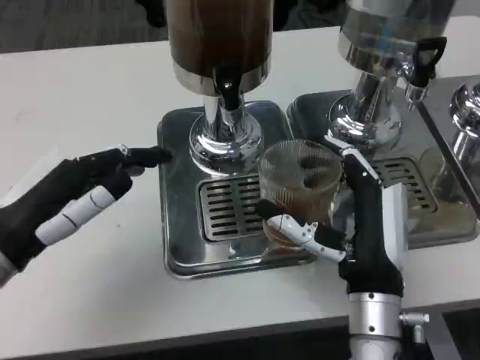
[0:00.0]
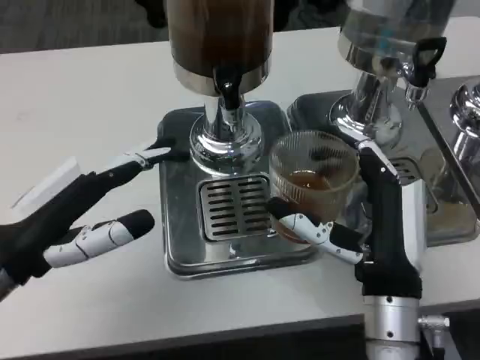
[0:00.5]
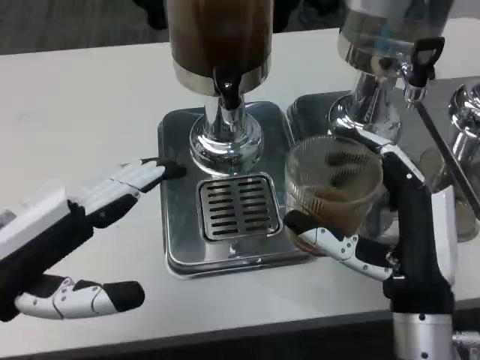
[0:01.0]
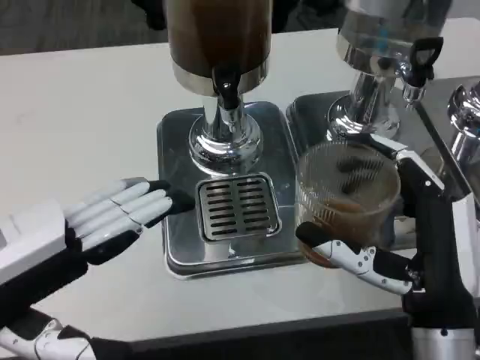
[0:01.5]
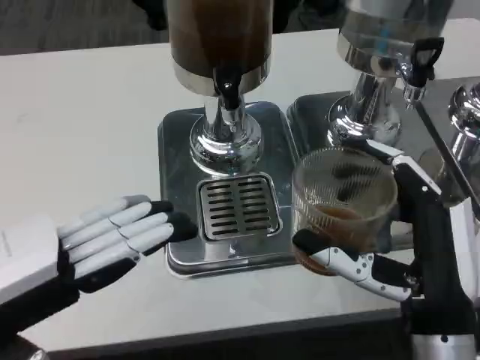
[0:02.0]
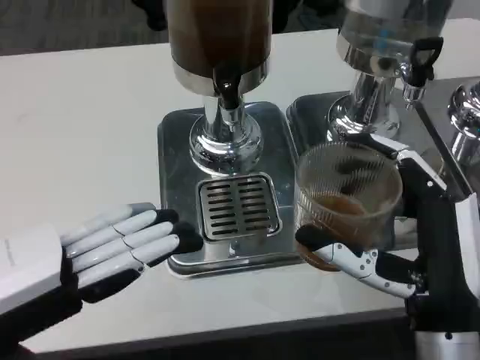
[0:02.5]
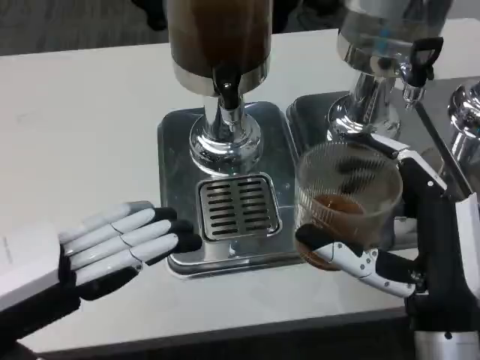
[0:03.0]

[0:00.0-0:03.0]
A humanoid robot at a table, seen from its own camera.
Task of the whole recording: Grasp the cup under the faucet to collect the drink, then remove the cup.
0:00.0 to 0:01.5: The left hand goes some 10 cm backward and upward; the right hand heads backward, covering some 5 cm.
0:01.5 to 0:03.0: There are only small adjustments of the hands.

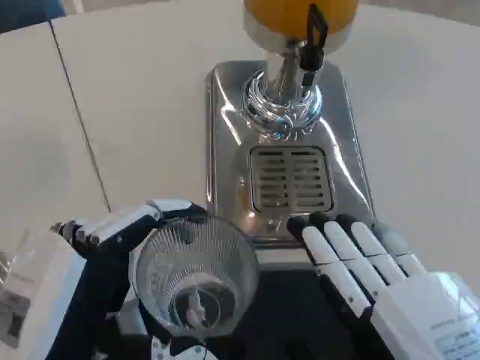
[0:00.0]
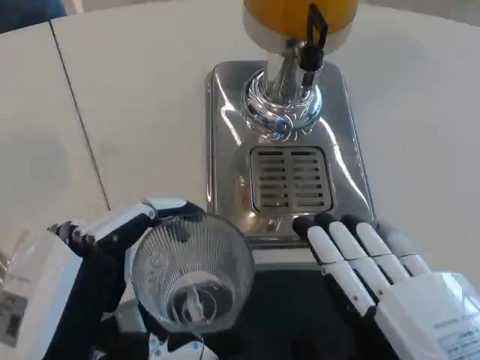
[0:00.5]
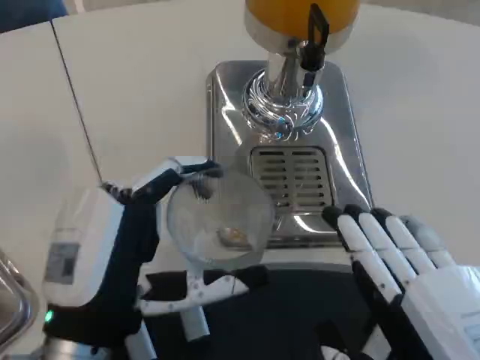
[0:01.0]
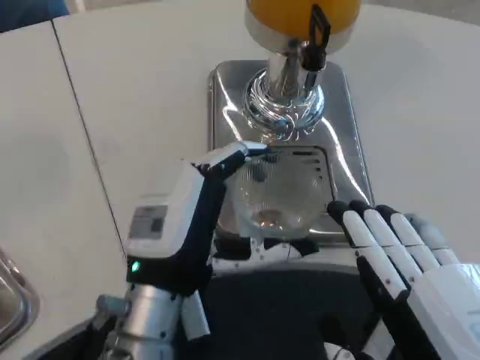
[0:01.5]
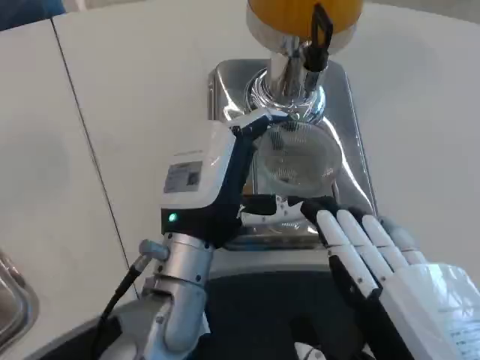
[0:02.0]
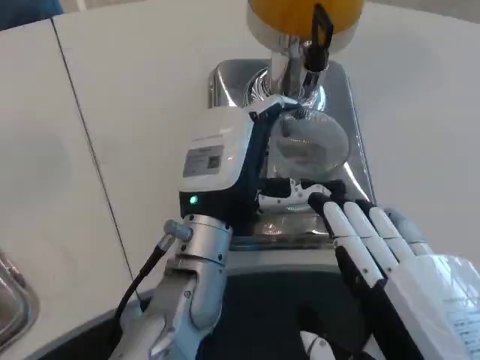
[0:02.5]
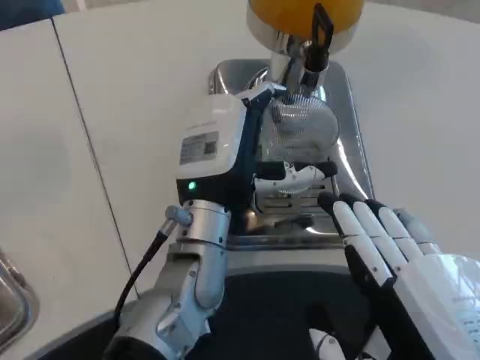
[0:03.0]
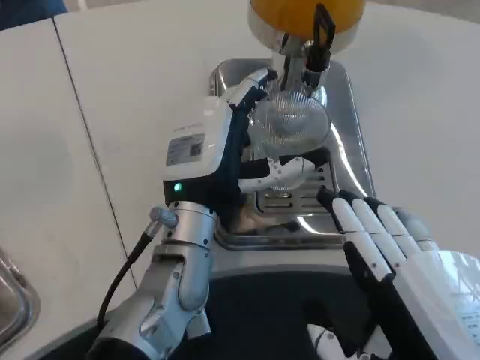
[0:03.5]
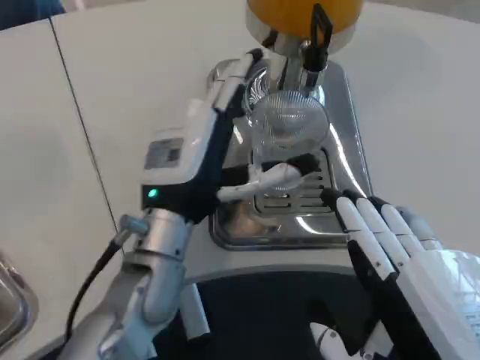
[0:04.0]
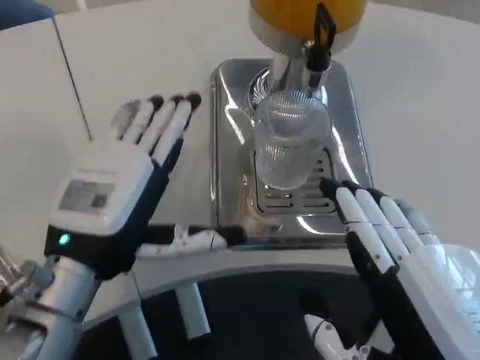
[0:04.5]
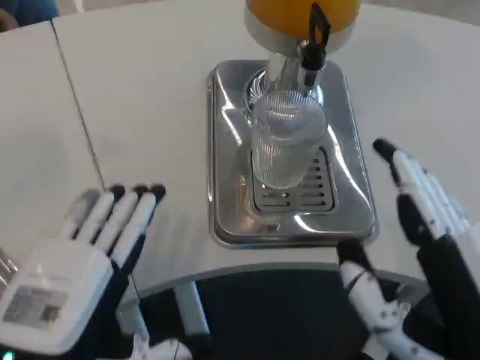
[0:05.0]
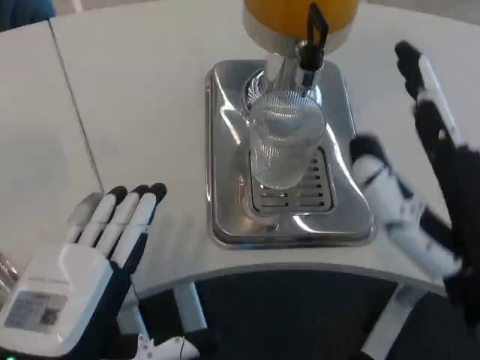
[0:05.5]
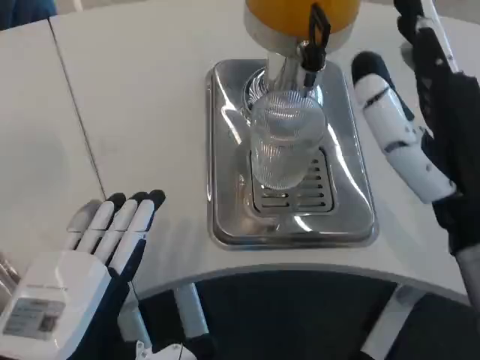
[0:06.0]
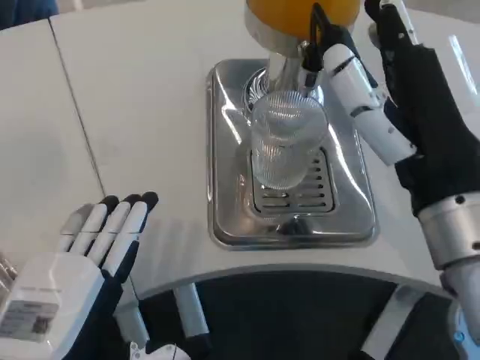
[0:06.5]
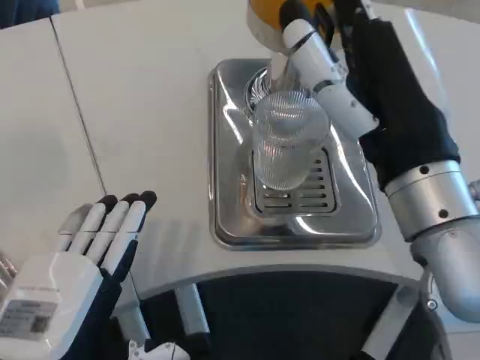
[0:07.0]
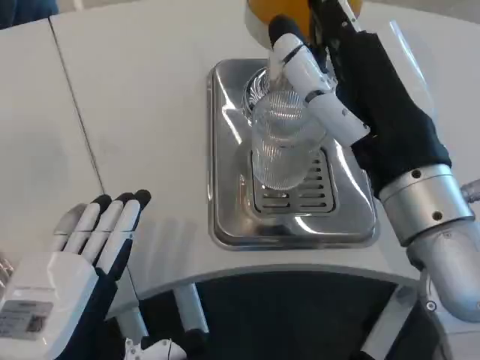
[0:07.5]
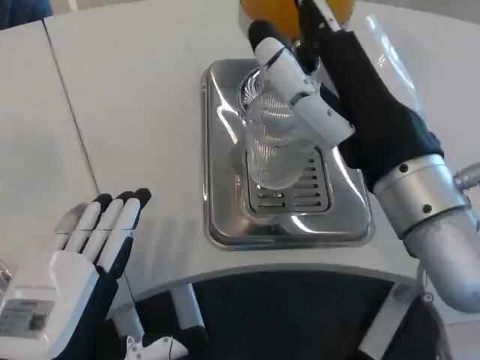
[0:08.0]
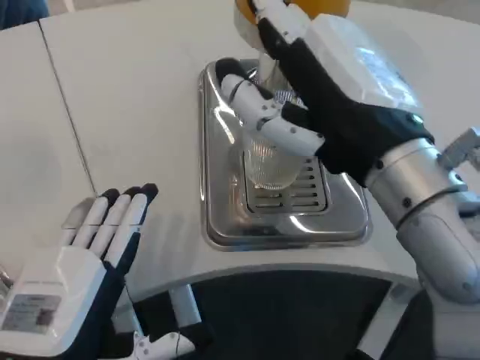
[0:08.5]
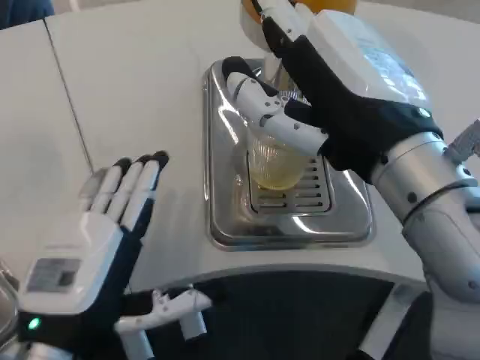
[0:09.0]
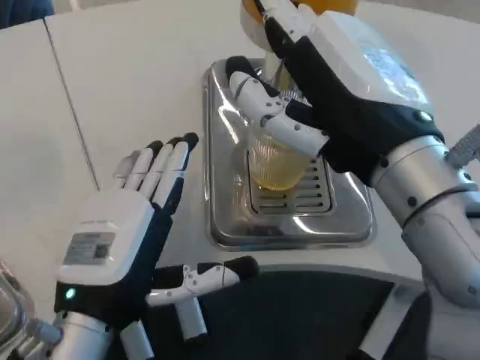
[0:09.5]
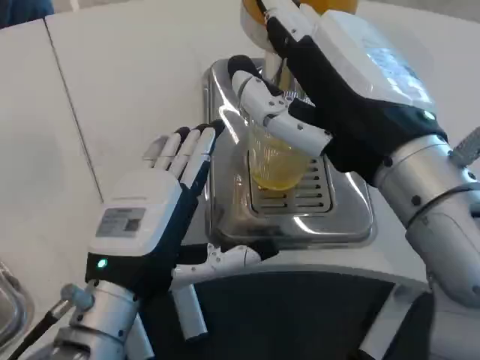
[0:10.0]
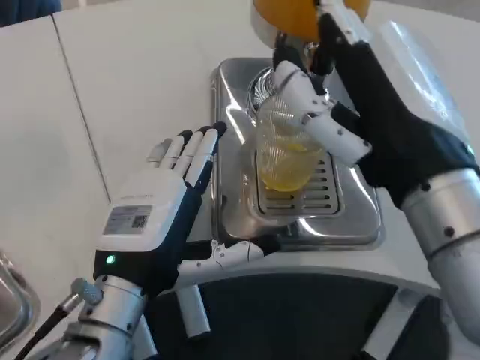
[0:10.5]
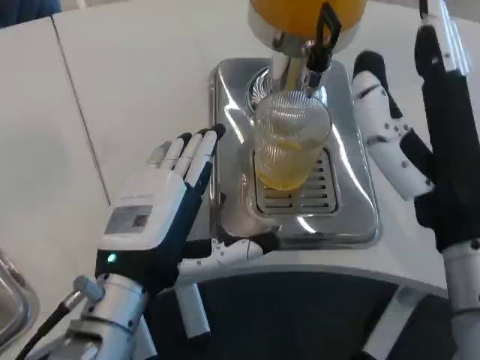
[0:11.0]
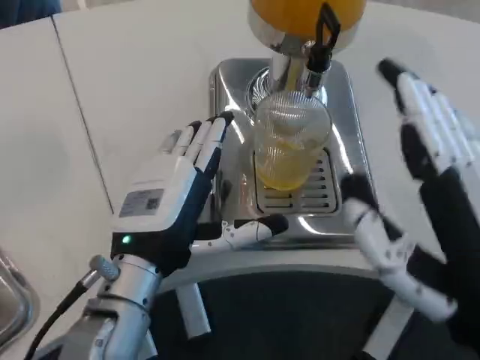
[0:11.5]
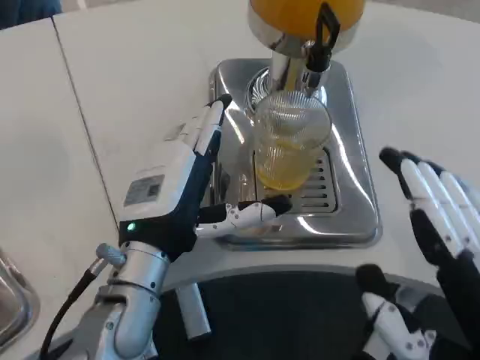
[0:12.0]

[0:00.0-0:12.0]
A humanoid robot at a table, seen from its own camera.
Task of the whole recording: Grasp the cup under the faucet to collect the drink, then remove the cup.
0:00.0 to 0:02.0: The left hand goes approximately 20 cm forward and to the right.
0:04.0 to 0:06.0: The right hand moves forward, about 10 cm. The left hand goes approximately 20 cm backward and to the left.
0:06.0 to 0:08.0: The right hand shifts by about 5 cm.
0:08.0 to 0:10.0: The left hand heads forward and to the right, covering approximately 10 cm.
0:10.0 to 0:12.0: The left hand shifts by some 5 cm, while the right hand shifts roughly 20 cm backward, downward and to the right.

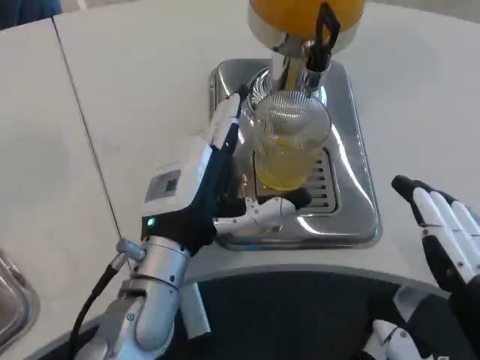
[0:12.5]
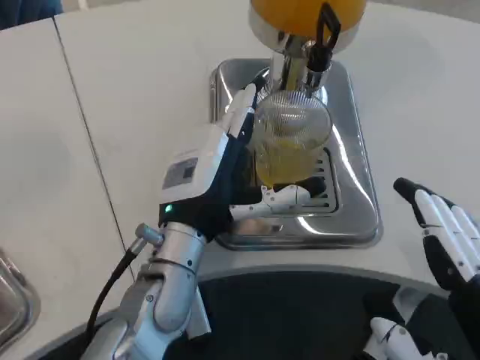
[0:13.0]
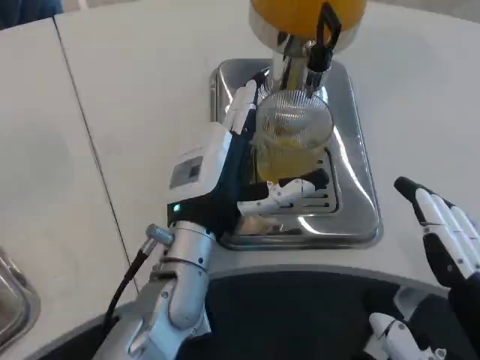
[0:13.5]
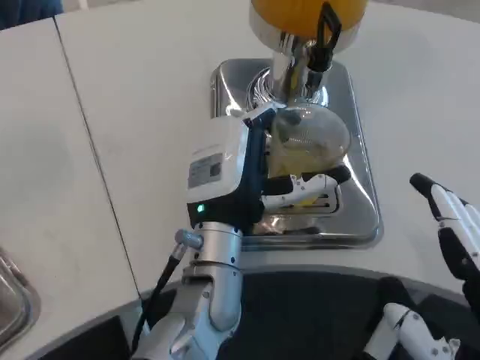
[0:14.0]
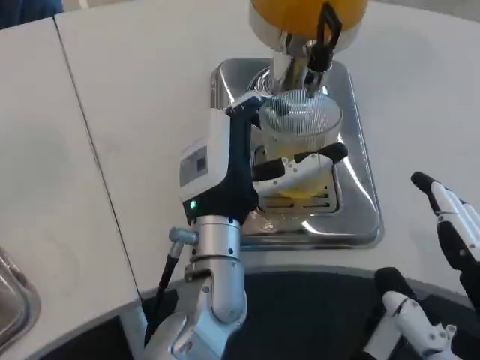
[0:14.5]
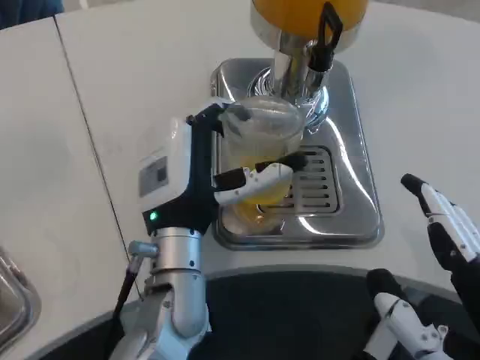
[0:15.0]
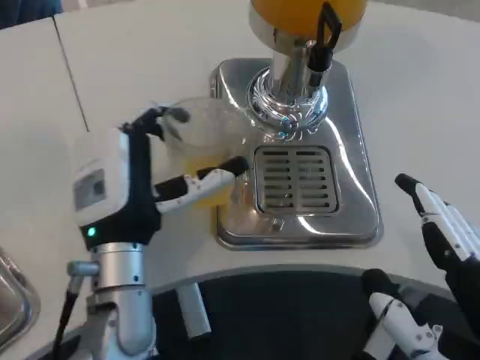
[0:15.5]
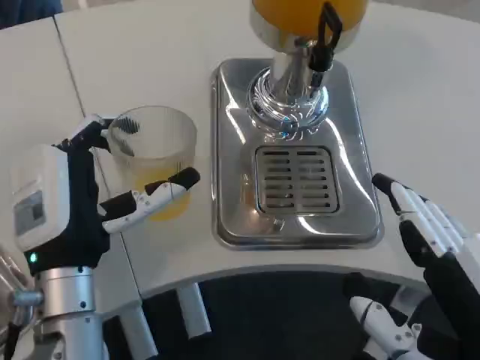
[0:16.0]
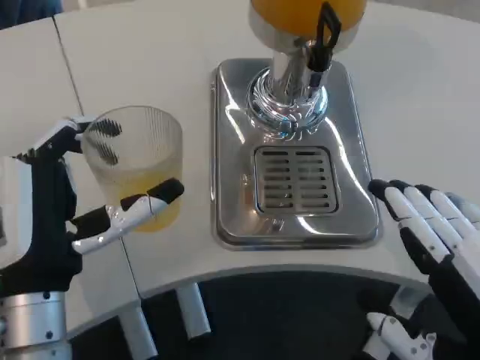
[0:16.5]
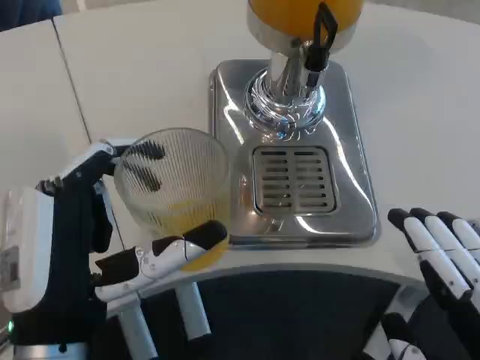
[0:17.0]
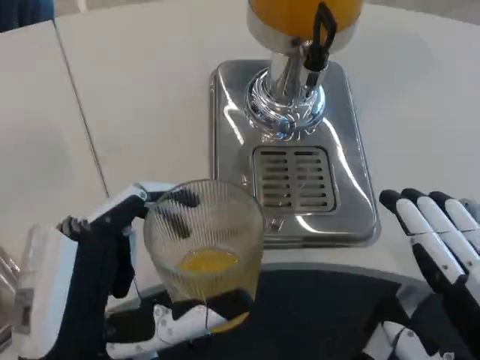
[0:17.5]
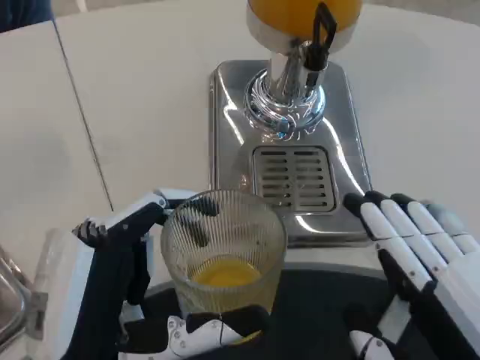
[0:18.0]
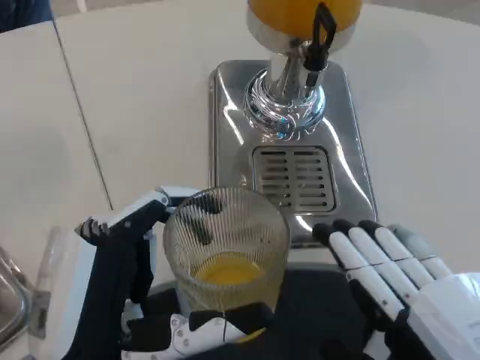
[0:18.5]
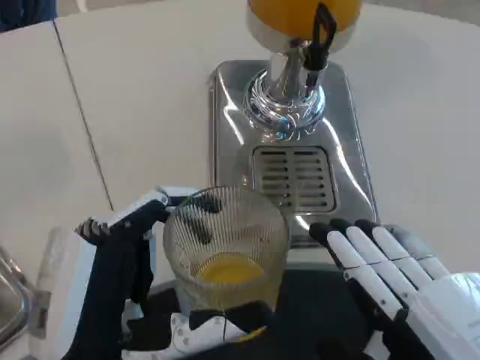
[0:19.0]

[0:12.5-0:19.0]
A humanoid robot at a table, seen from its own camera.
Task of the whole recording: Grasp the cup under the faucet to collect the drink, then remove the cup.
0:12.5 to 0:14.5: The left hand travels to the right by roughly 5 cm.
0:14.5 to 0:17.0: The left hand is displaced backward and to the left by some 15 cm.

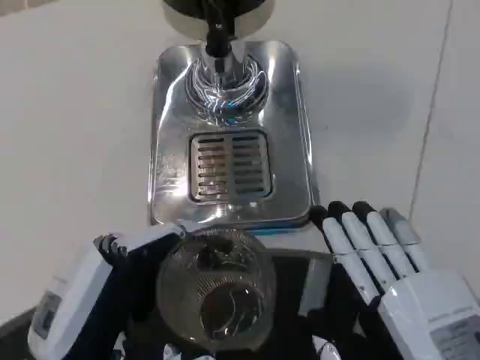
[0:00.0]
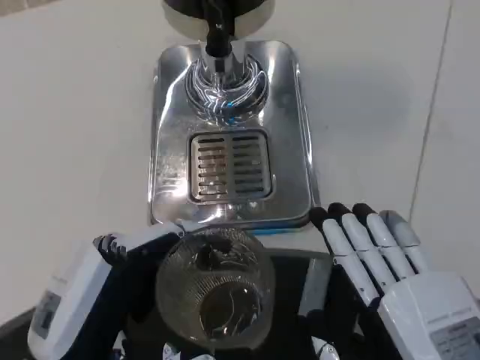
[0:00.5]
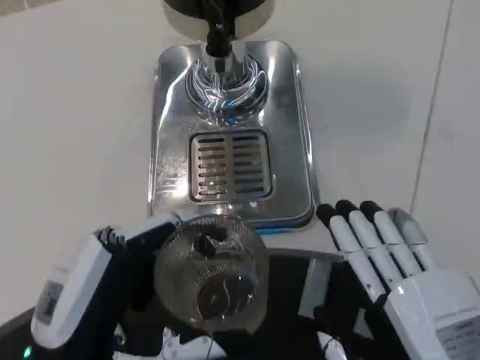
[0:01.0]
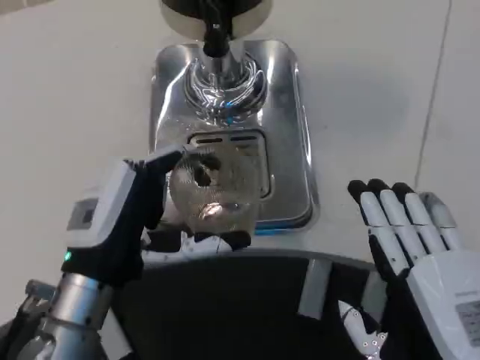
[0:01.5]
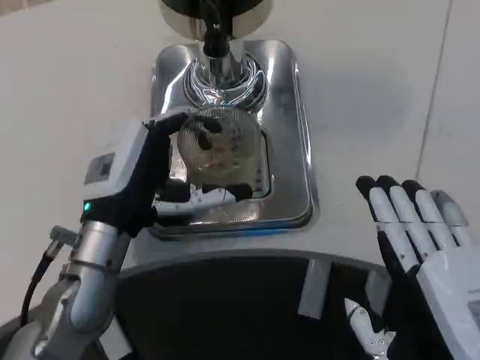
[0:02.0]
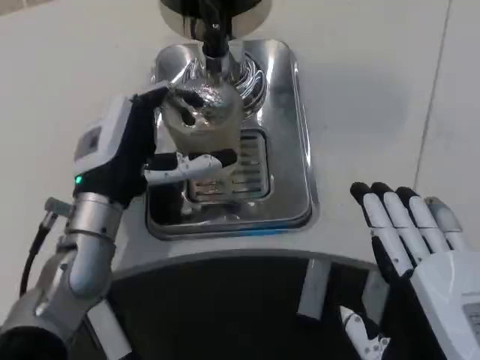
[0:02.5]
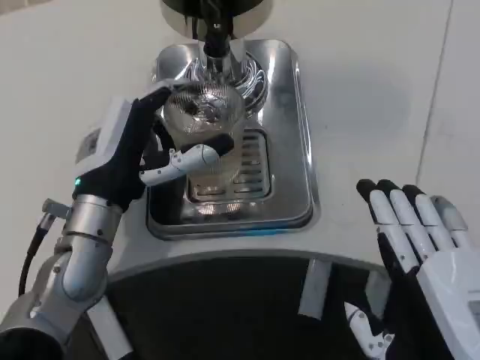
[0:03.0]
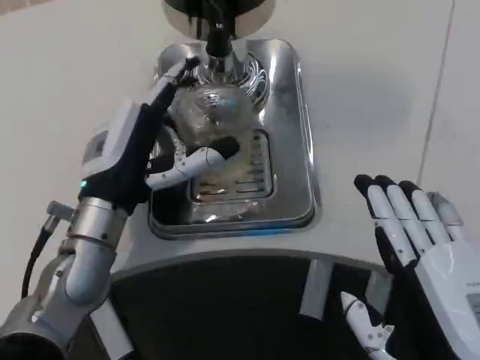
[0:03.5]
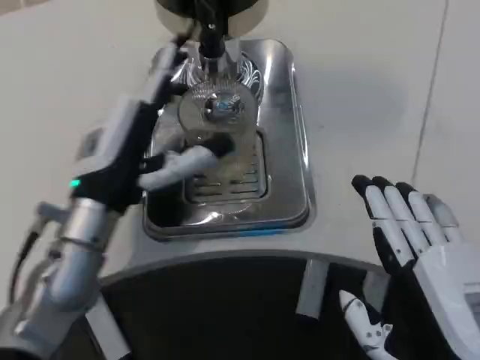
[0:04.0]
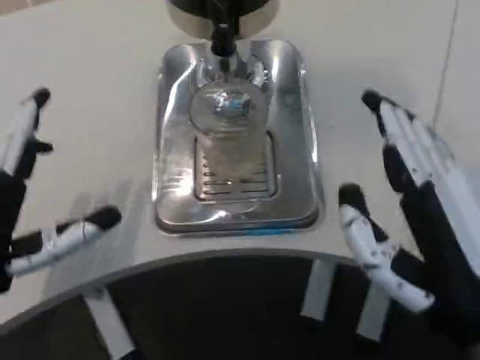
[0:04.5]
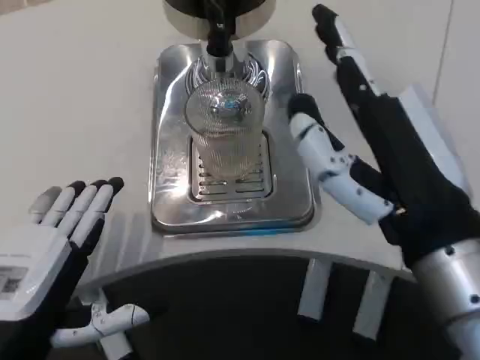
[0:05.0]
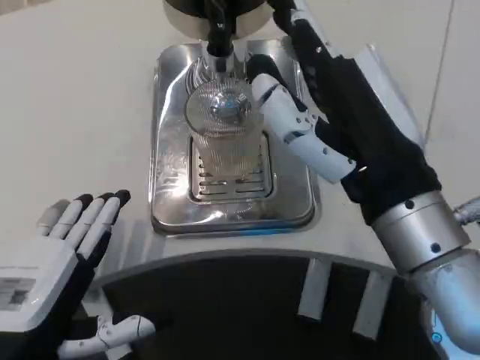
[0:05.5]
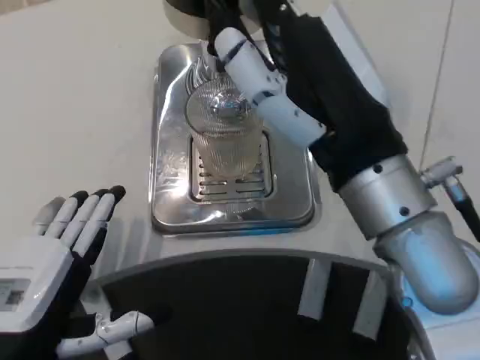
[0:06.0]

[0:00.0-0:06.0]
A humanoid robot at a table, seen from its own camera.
Task of the whole recording: Grasp the cup under the faucet to collect the drink, then remove the cup.
0:00.0 to 0:02.0: The left hand shifts about 15 cm forward.
0:04.0 to 0:06.0: The left hand heads backward, covering approximately 15 cm, while the right hand shifts approximately 15 cm forward, upward and to the left.
